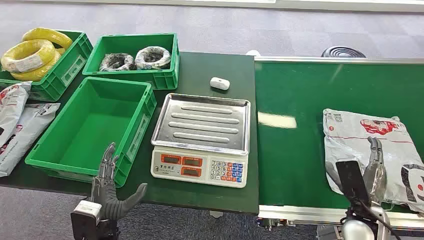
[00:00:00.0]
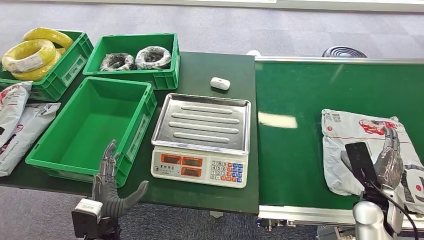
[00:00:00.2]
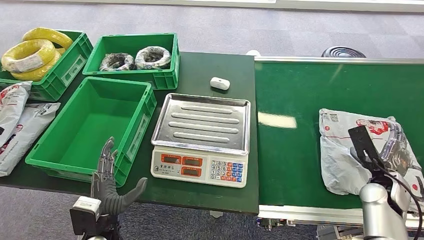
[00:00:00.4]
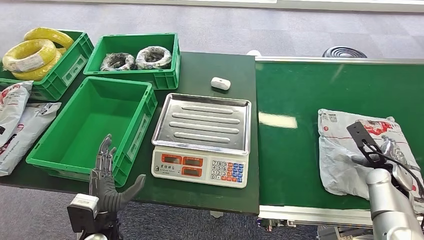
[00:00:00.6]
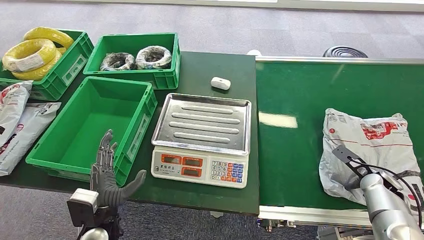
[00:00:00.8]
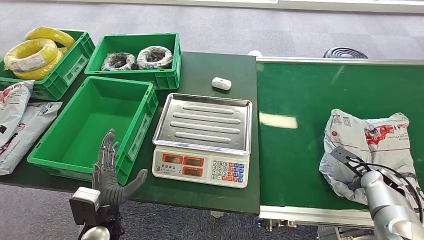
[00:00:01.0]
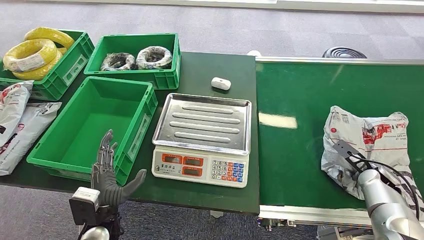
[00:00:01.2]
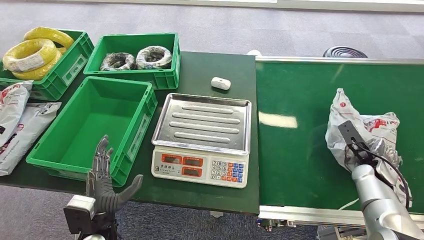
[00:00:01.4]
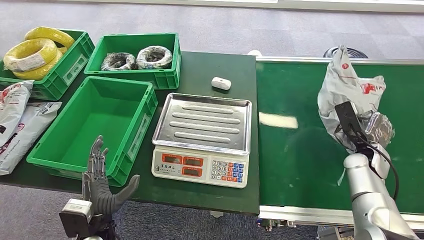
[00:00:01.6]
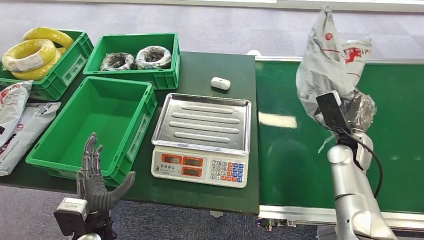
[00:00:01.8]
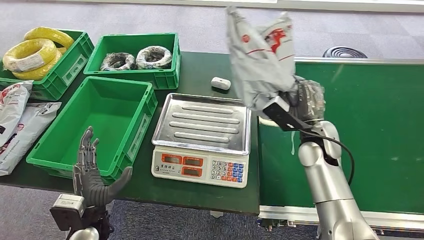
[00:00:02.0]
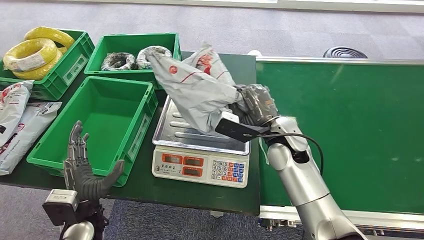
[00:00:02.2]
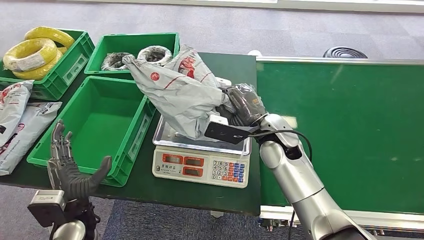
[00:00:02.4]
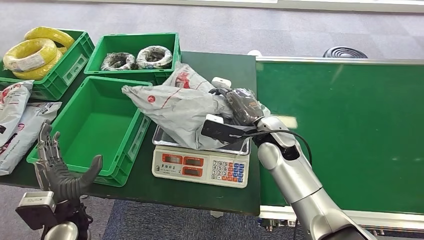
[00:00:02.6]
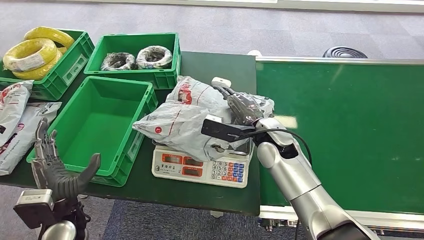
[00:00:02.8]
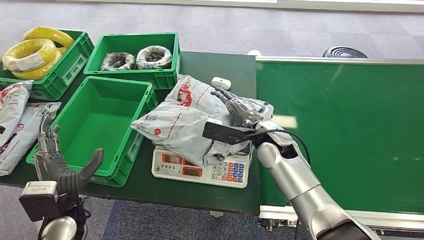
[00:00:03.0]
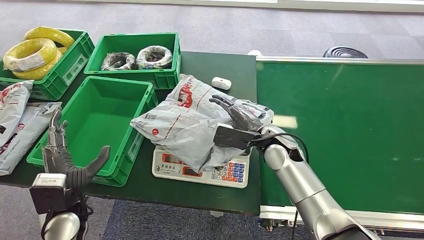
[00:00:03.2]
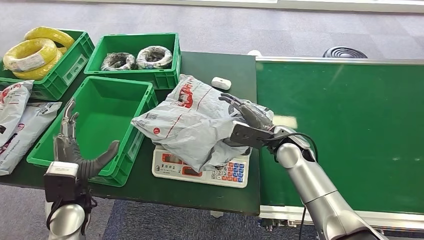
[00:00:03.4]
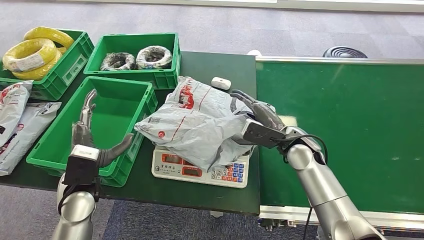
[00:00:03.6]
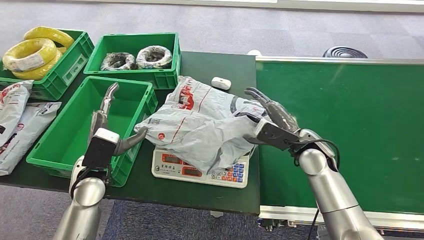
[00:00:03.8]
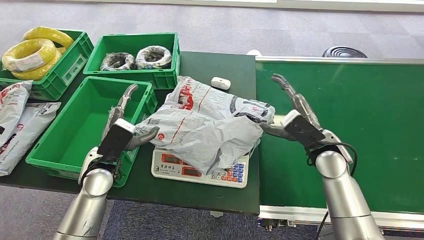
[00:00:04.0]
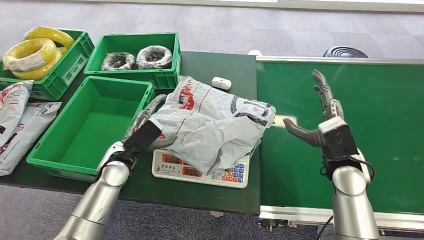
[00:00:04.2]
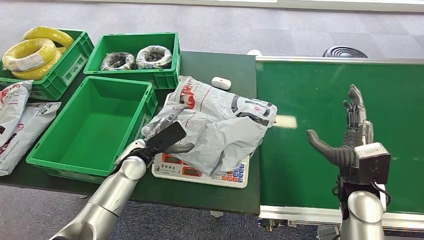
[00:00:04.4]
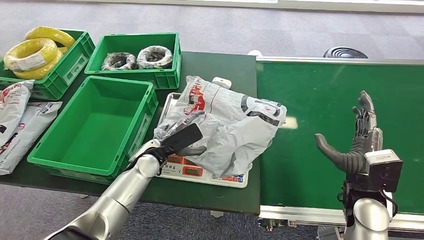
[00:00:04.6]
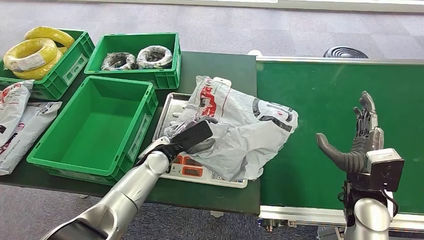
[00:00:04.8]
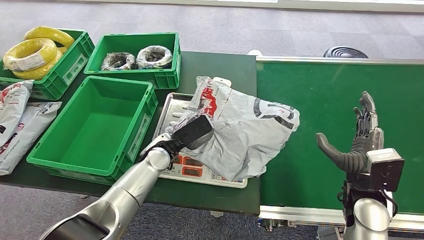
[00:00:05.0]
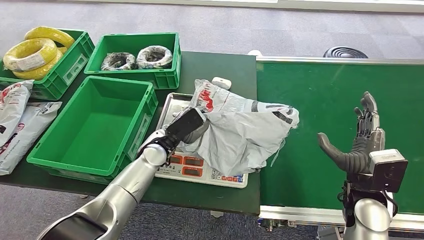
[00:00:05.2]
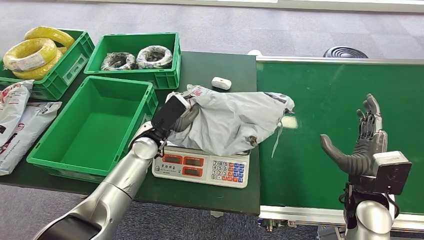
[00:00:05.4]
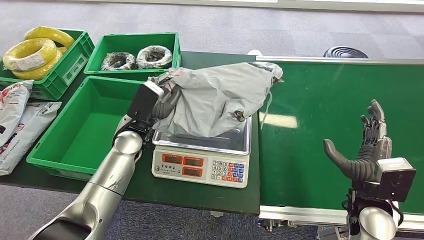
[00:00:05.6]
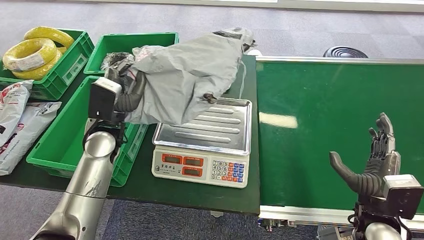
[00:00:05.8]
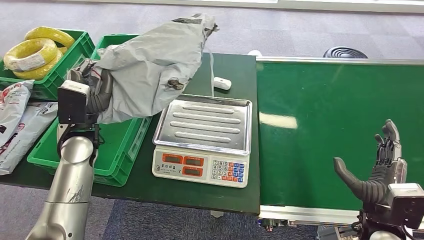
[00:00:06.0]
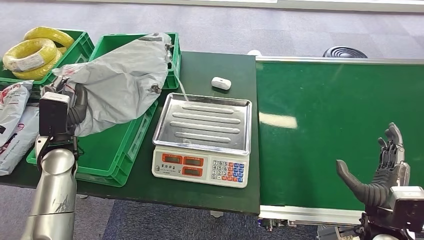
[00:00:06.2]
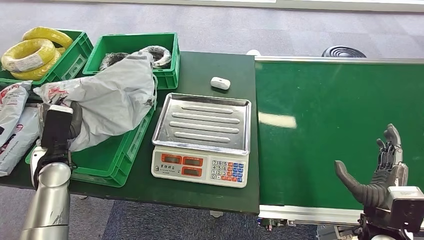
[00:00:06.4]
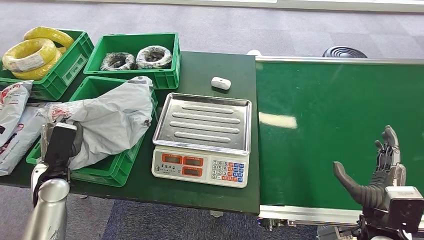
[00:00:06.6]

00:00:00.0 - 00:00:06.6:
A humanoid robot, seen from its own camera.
Step, 00:00:00.0 - 00:00:01.6: Pick up the package from the conveyor belt.
Step, 00:00:02.0 - 00:00:03.8: Place the package onto the inbound machine.
Step, 00:00:04.2 - 00:00:06.0: Pick up the package from the inbound machine.
Step, 00:00:06.4 - 00:00:06.6: Place the package into the parcel locker.
